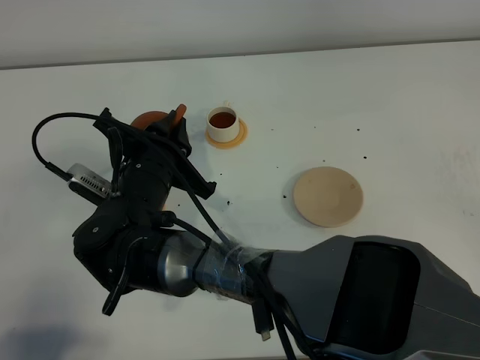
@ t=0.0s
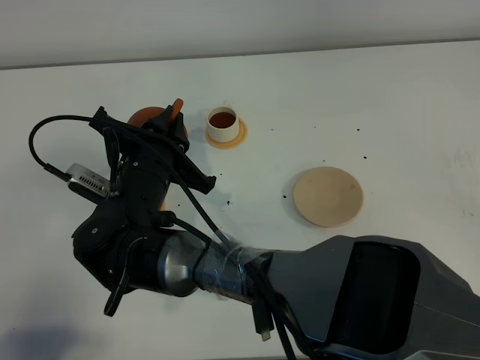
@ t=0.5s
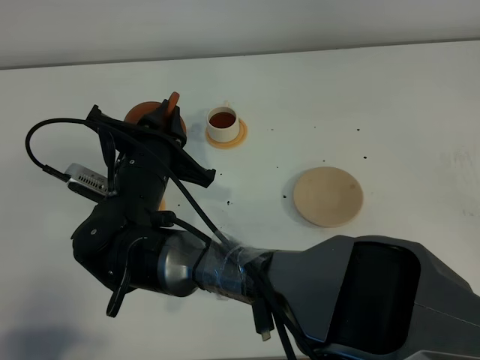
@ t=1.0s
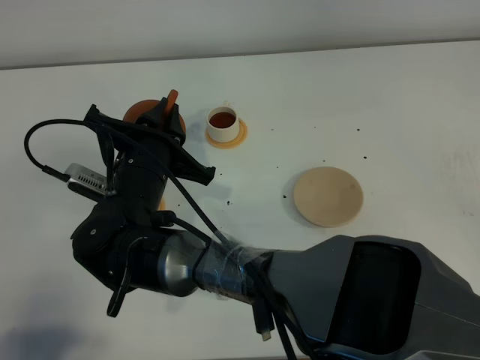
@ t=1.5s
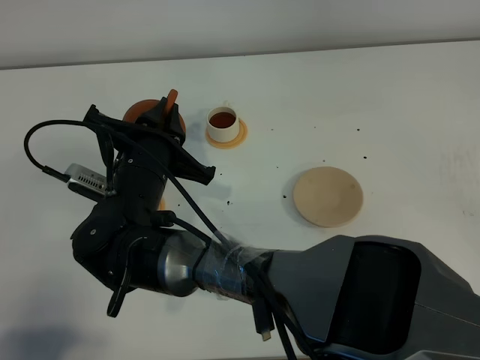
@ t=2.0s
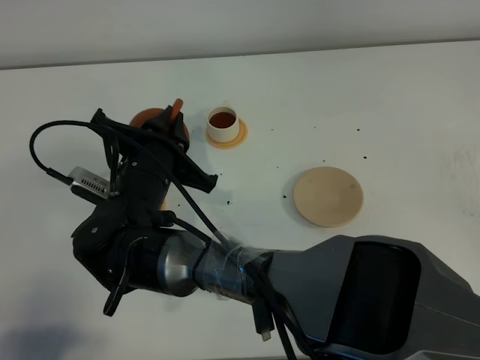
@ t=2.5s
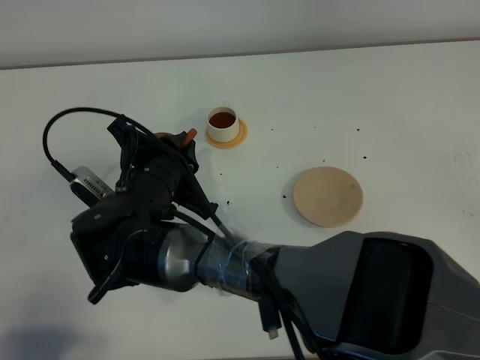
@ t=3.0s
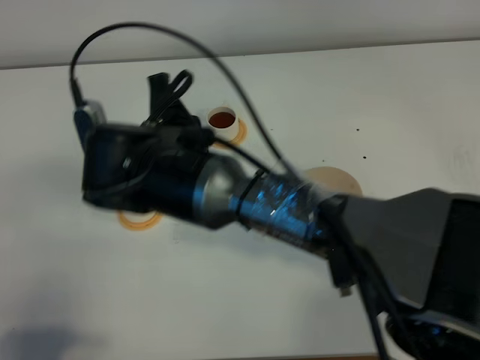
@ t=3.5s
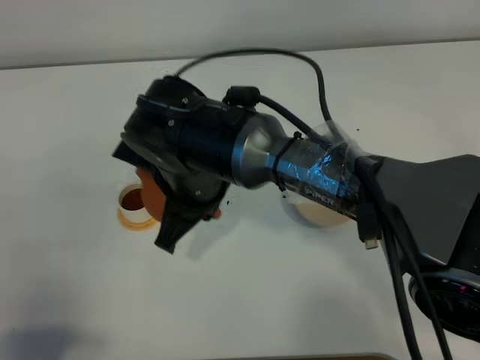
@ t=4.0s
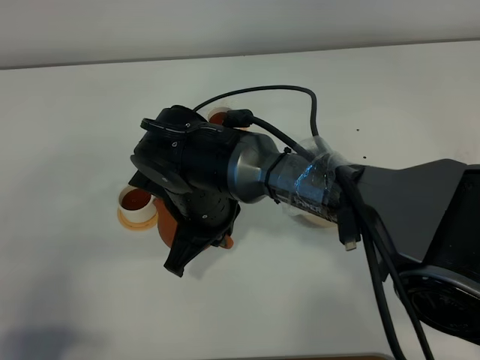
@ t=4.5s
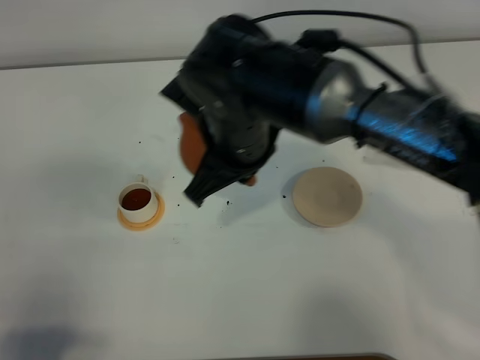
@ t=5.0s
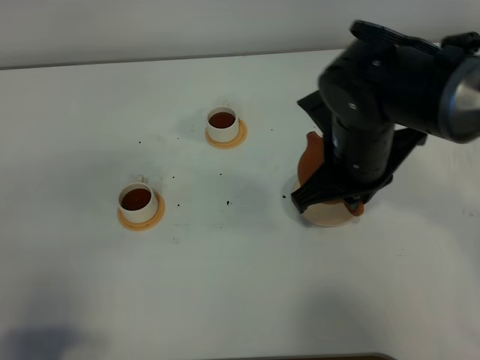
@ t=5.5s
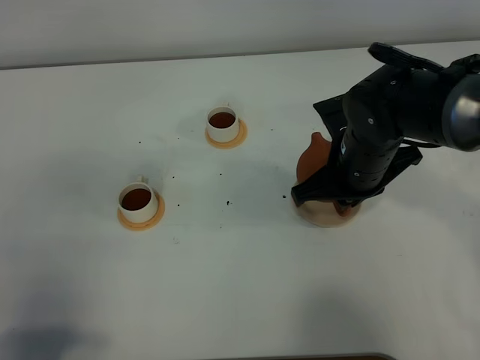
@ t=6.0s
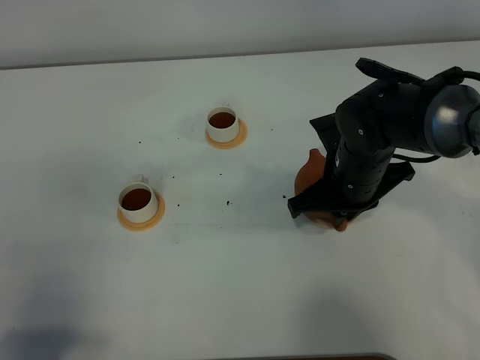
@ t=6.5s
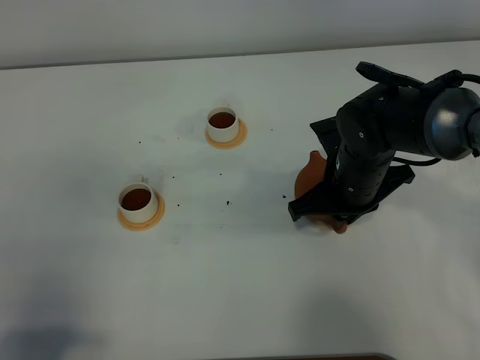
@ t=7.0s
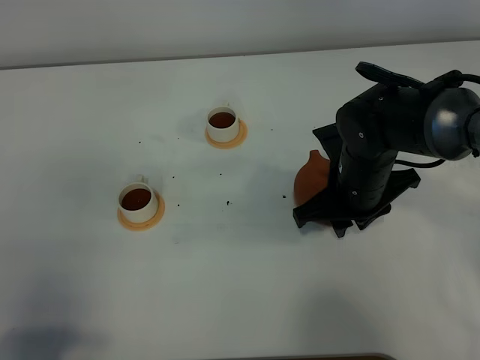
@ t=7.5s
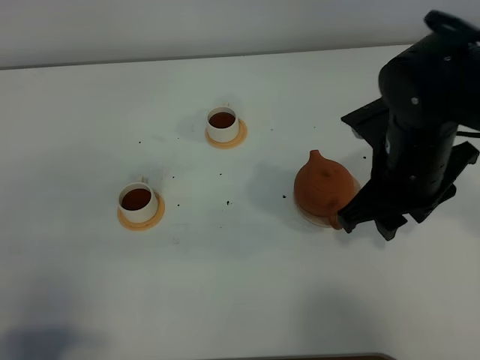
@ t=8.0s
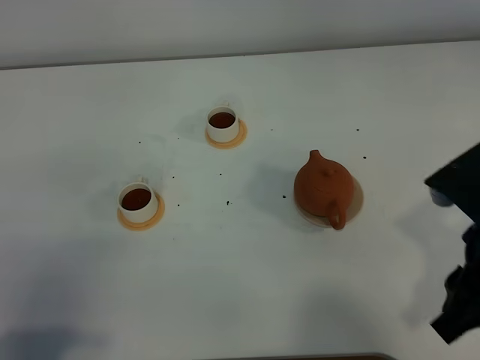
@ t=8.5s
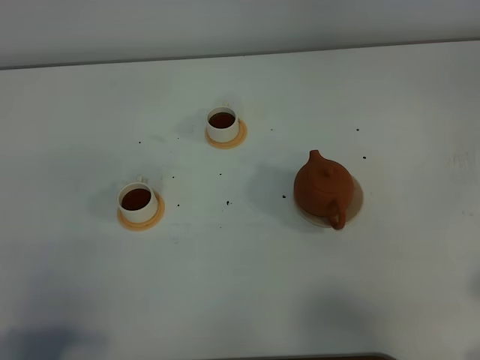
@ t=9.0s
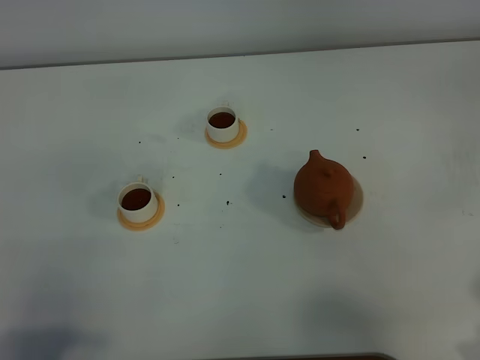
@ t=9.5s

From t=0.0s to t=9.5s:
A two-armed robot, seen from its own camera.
Task of the whole recording: grasp the brown teapot and pour the tea into the two white teacups one by one, put the brown teapot back in its original place.
Step, from t=0.0s to t=4.0s: Pour tea into the teacup with the right gripper.
From t=0.0s to t=2.0s: The grippers move only a little.
From t=2.0s to t=4.0s: The right gripper is displaced to the right by approximately 5 cm.
From t=4.0s to t=5.5s: The right gripper moves to the right, roughly 15 cm.
From t=5.5s to t=7.5s: The right gripper shifts about 5 cm downward, and opens up.
From t=7.5s to t=9.5s: The right gripper heads backward, to the right and upward, covering roughly 30 cm.

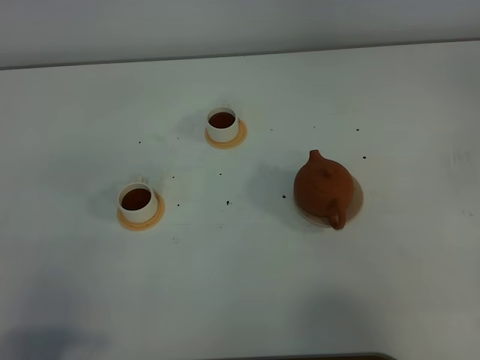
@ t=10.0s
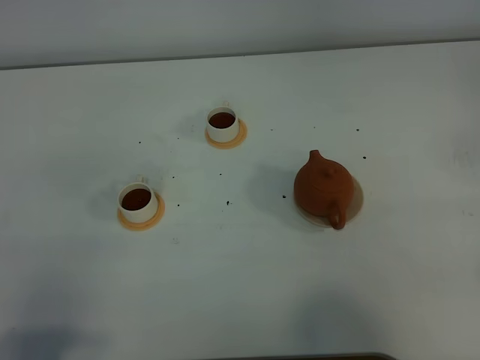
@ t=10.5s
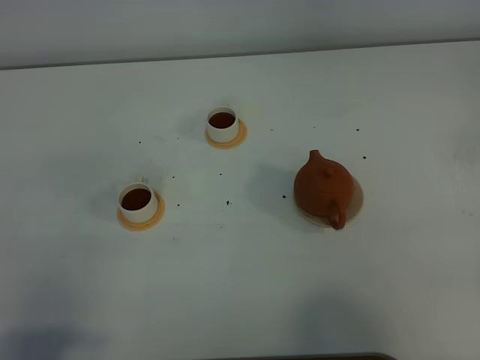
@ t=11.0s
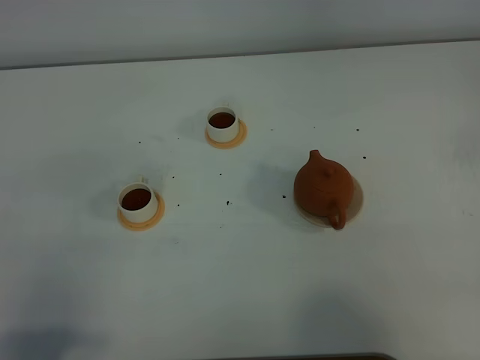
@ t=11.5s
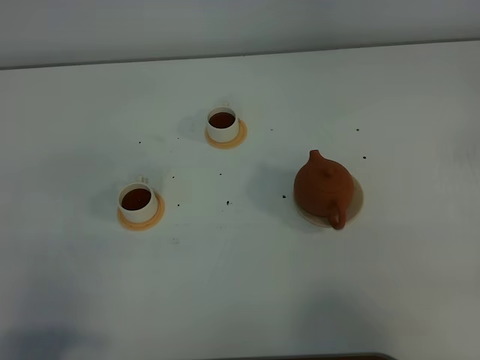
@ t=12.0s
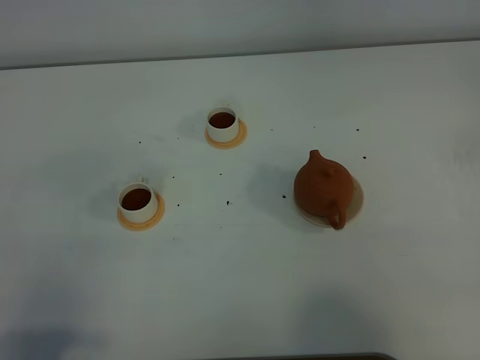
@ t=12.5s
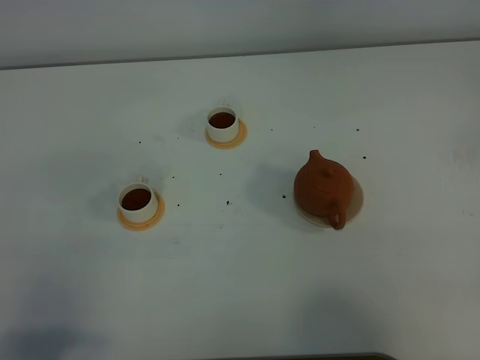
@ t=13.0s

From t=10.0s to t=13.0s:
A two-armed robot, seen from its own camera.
Task of the whole recording: grasp the brown teapot and pour the tea into the two white teacups one by one, put the brown teapot back in its original place.
From t=11.5s to t=13.0s: Neither gripper changes place.

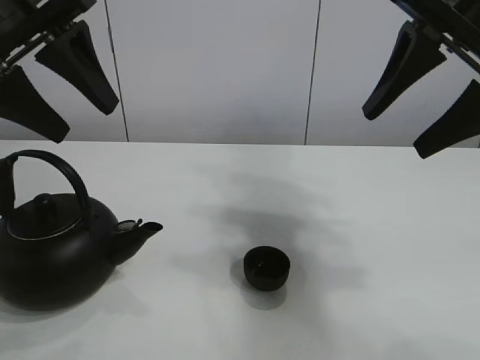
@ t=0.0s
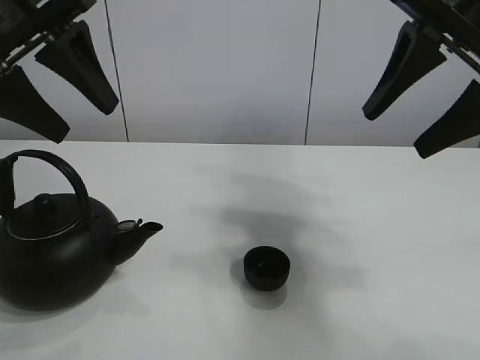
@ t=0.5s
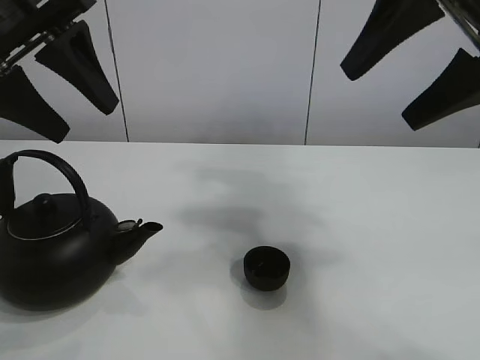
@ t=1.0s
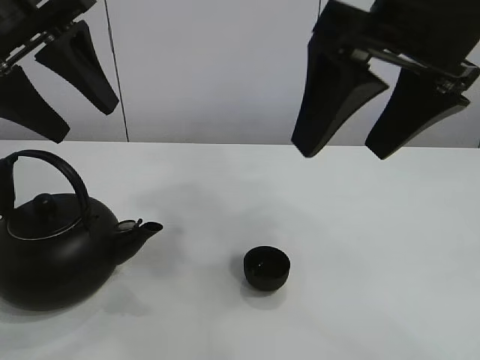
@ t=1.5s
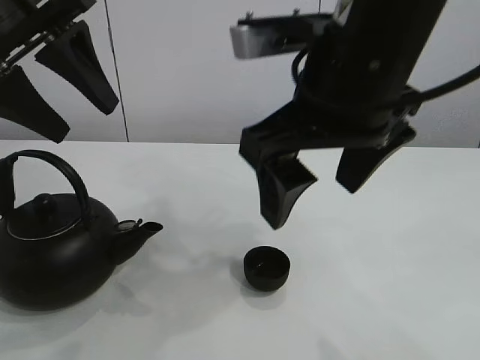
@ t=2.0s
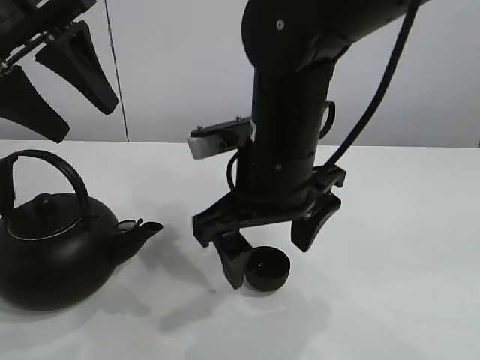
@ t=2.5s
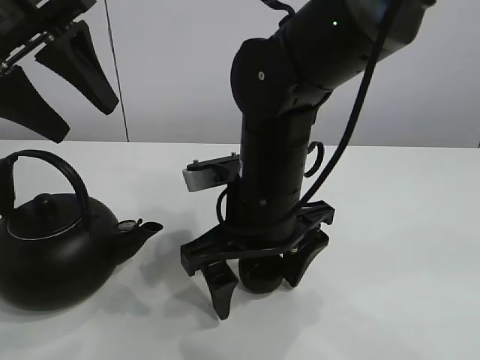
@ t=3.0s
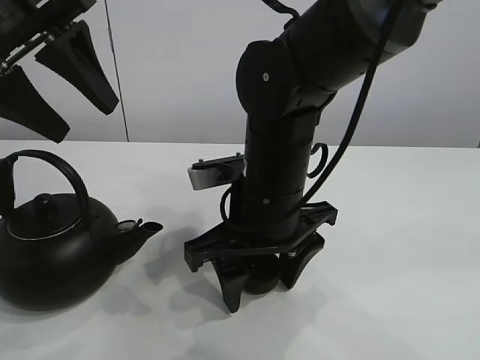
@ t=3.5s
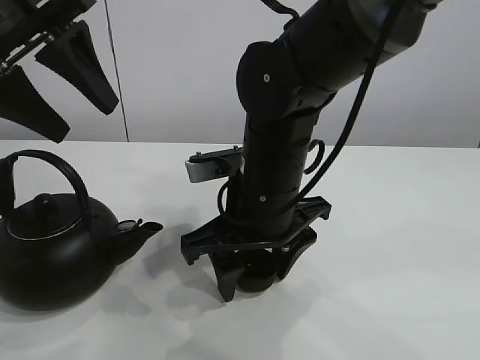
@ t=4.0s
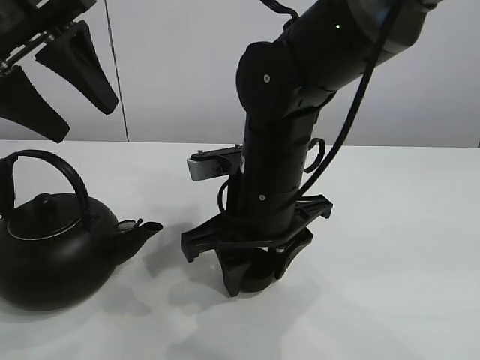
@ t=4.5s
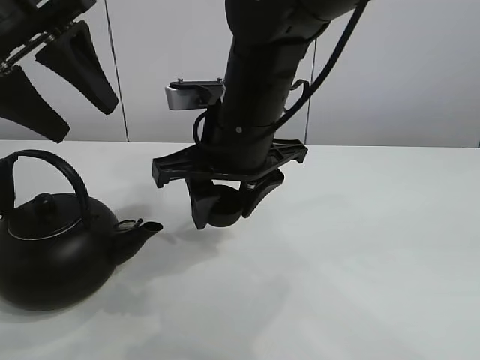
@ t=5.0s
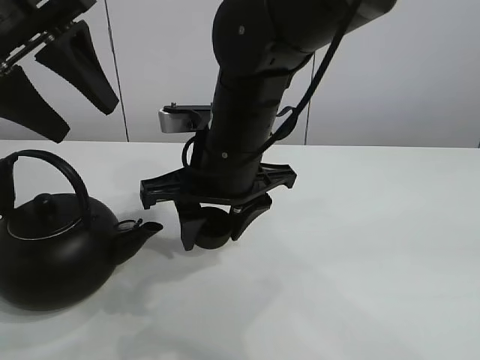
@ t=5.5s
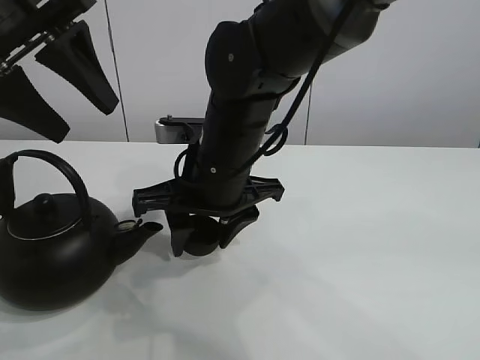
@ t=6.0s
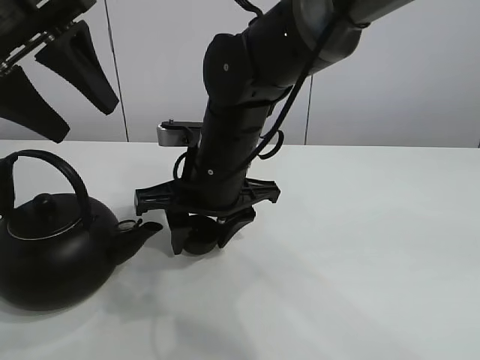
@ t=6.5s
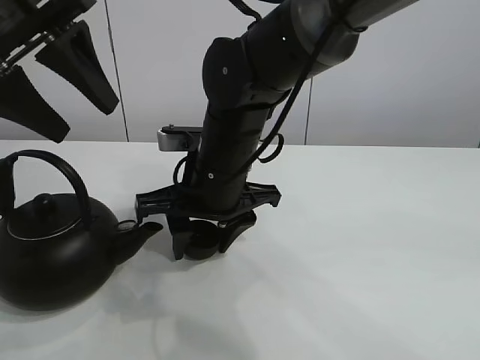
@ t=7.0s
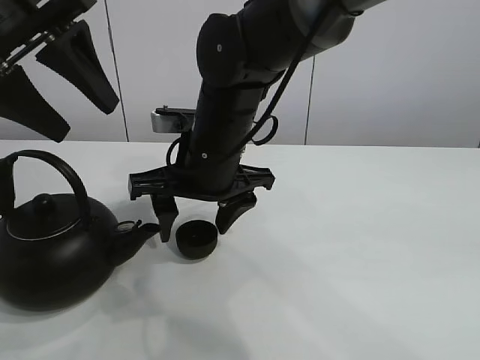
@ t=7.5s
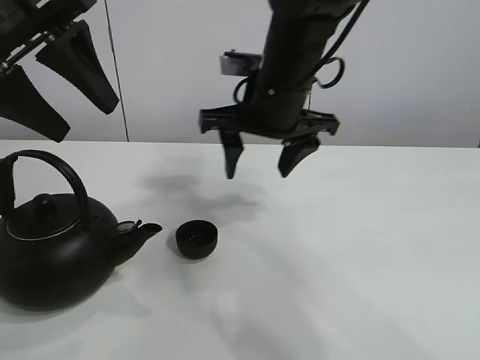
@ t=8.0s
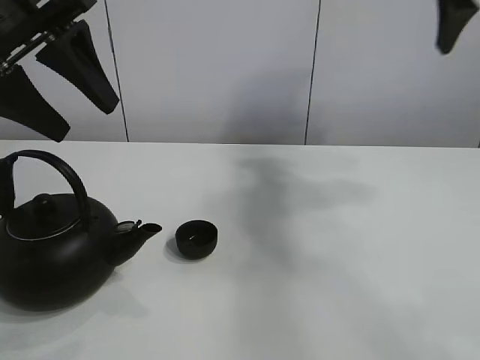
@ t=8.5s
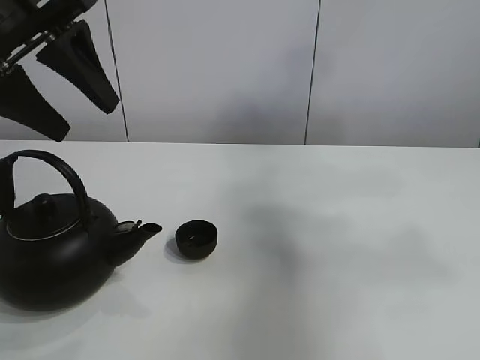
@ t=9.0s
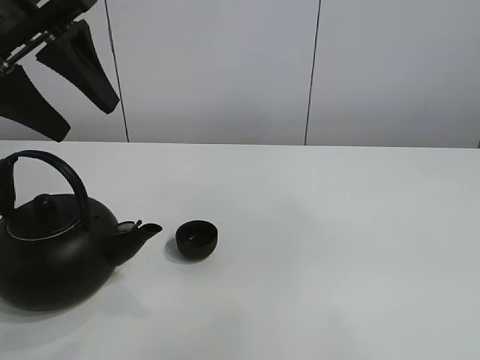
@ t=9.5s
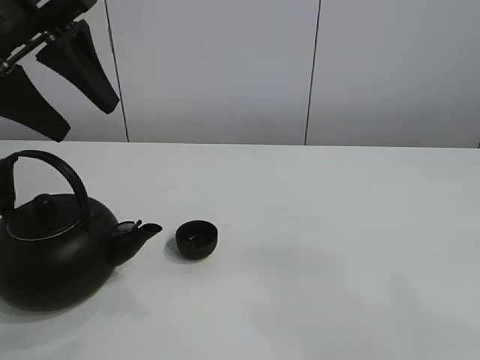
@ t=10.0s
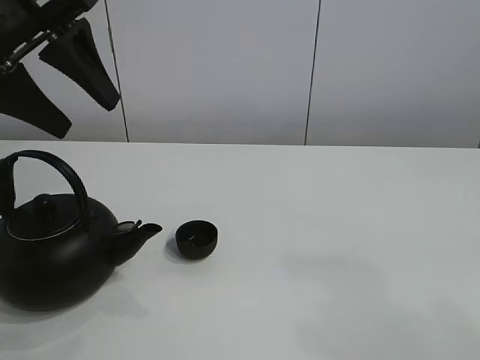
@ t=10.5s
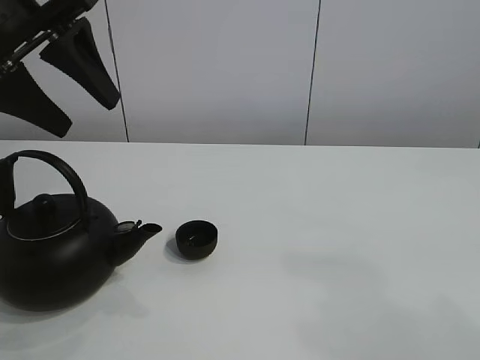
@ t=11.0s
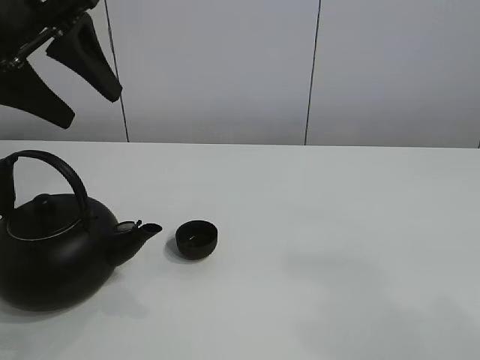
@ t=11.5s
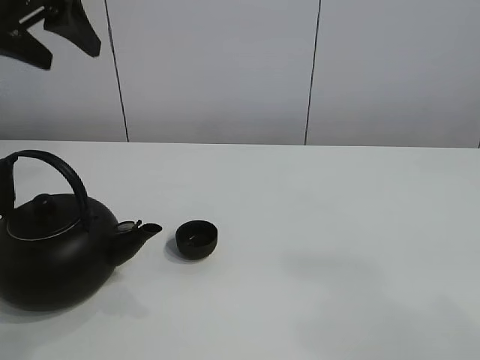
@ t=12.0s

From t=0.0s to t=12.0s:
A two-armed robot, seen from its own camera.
Task of the whole recording: pour tea into the teacup.
Step, from t=0.0s to t=4.5s: Pick up the teacup with the right gripper.
Step, from t=5.0s to t=7.0s: Place the teacup in the center of view with the right gripper.
From t=2.0s to t=4.0s: The right gripper goes roughly 15 cm downward and forward, and closes up.
From t=4.0s to t=6.0s: The right gripper ends up approximately 5 cm from where it was, and closes.
From t=6.0s to t=8.0s: The right gripper travels to the right, upward and forward by approximately 10 cm, and opens.
From t=8.0s to t=10.0s: The right gripper shifts approximately 50 cm backward and to the right.

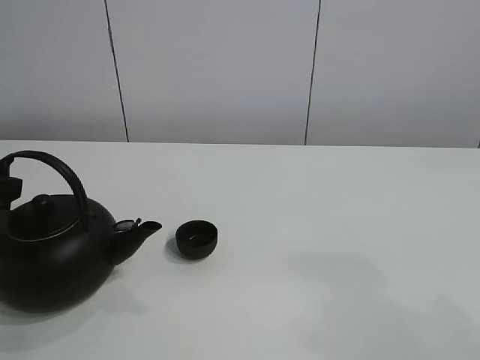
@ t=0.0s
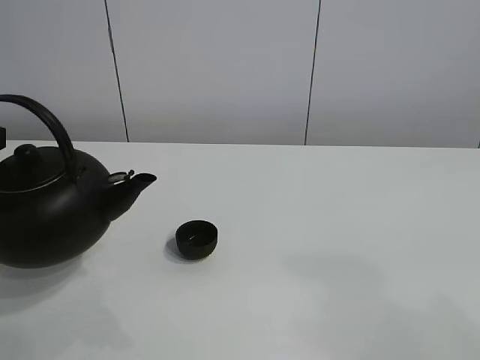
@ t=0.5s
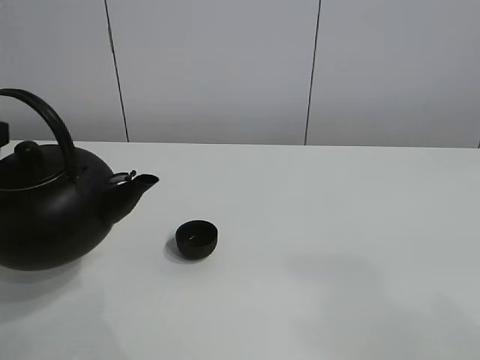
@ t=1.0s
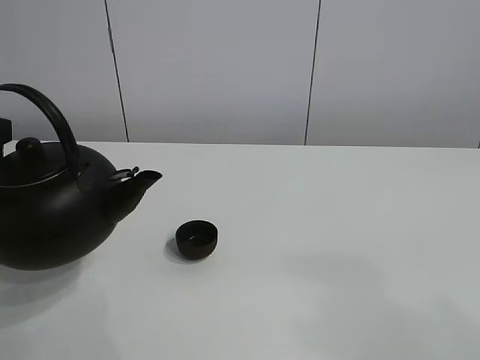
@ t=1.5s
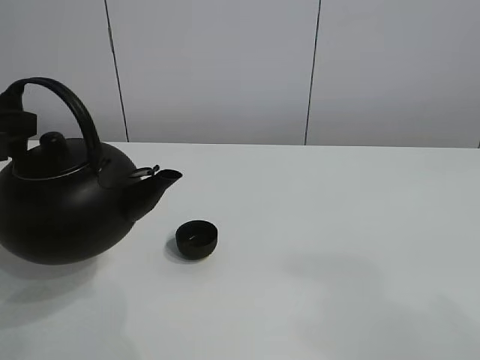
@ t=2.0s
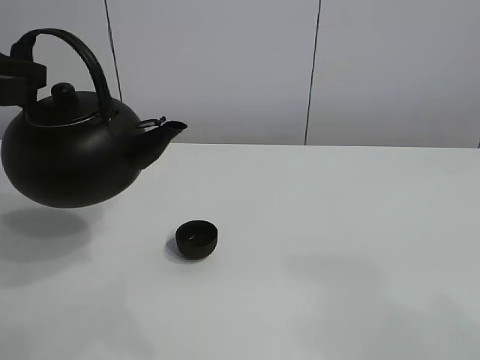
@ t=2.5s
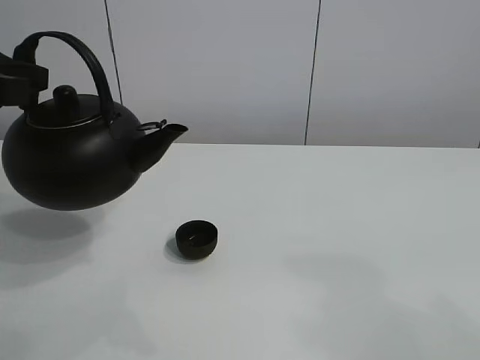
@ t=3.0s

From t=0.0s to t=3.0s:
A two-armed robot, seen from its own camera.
Task of the whole recording: pour tea into the teacup.
From t=0.0s to t=1.5s: The left gripper travels upward by roughly 5 cm.
From t=1.5s to t=3.0s: The left gripper moves about 5 cm.
